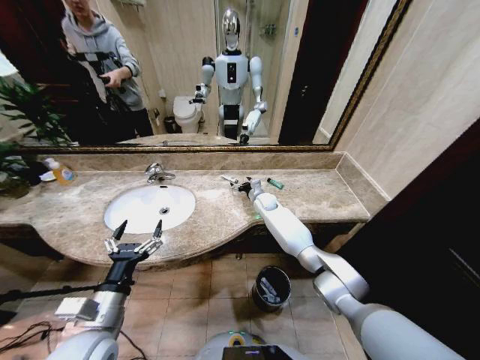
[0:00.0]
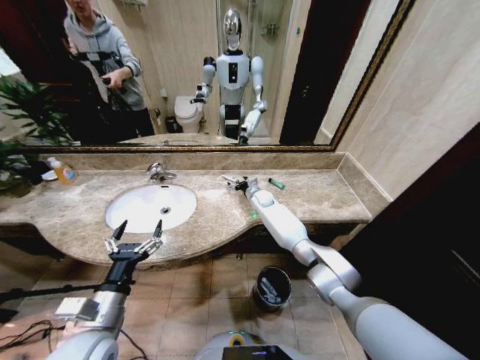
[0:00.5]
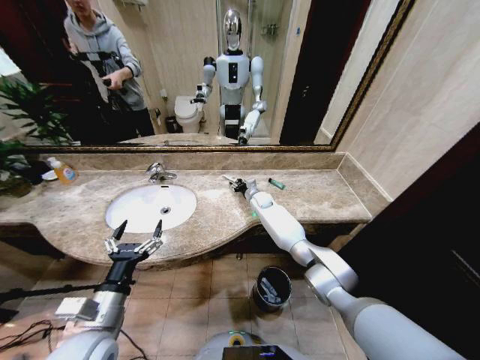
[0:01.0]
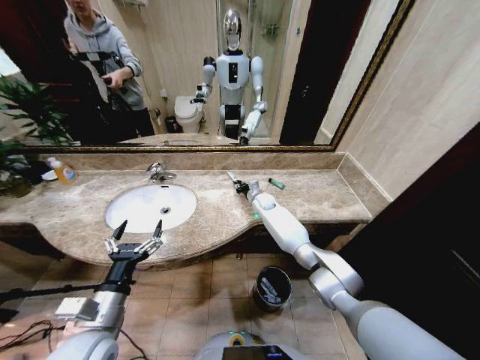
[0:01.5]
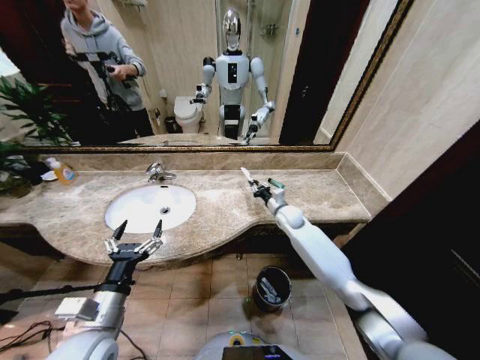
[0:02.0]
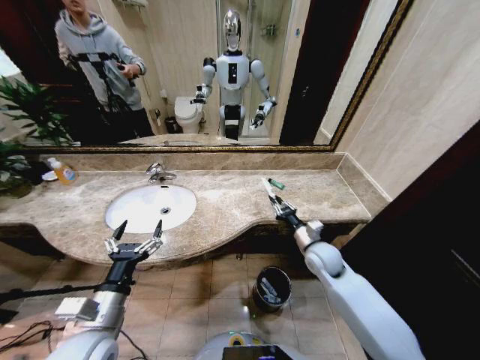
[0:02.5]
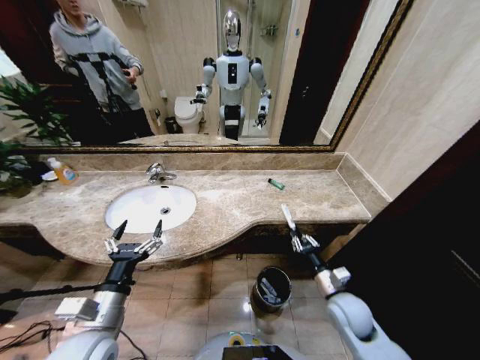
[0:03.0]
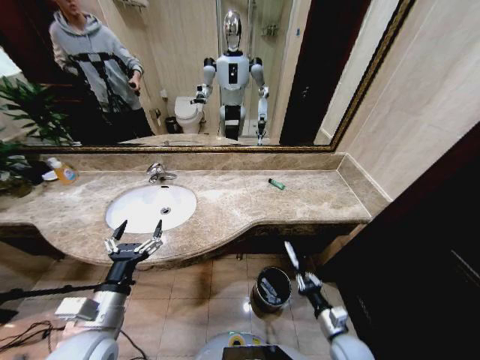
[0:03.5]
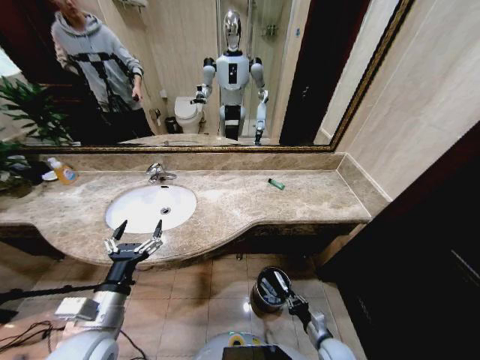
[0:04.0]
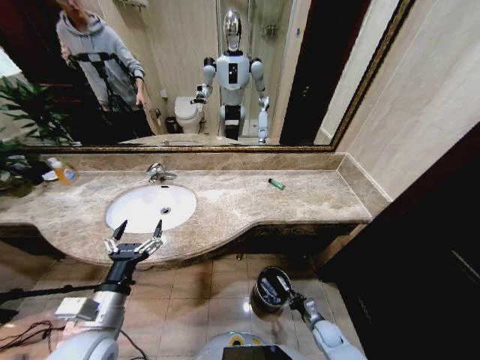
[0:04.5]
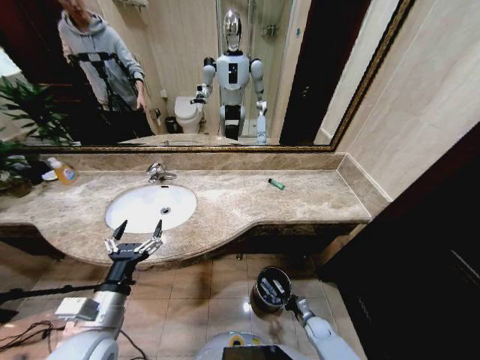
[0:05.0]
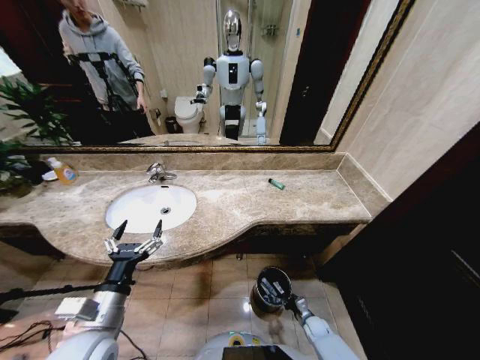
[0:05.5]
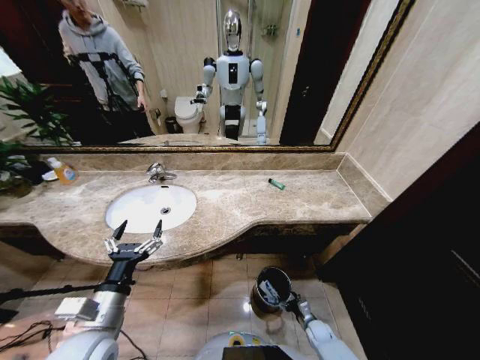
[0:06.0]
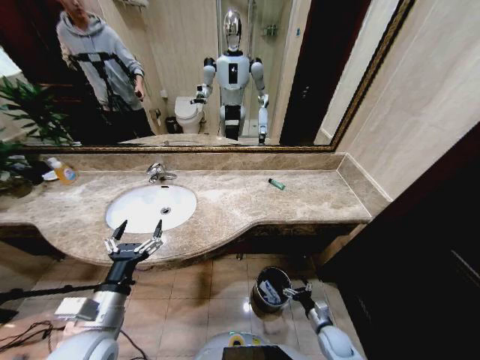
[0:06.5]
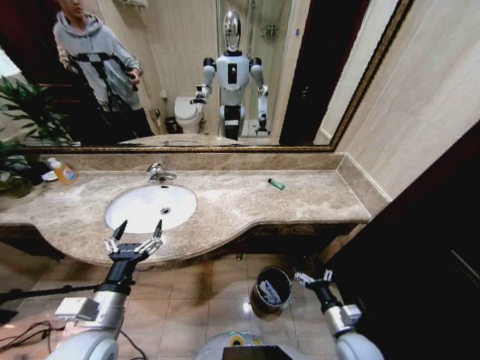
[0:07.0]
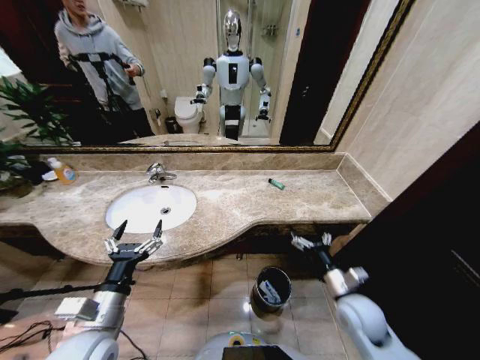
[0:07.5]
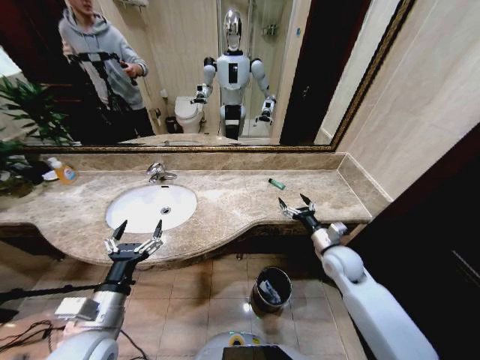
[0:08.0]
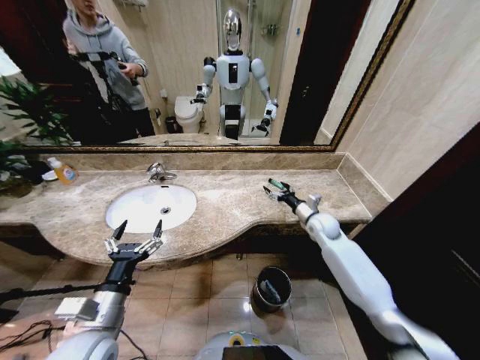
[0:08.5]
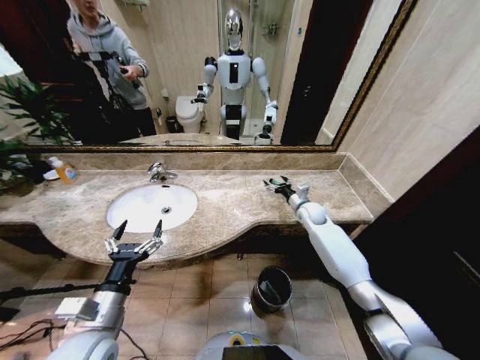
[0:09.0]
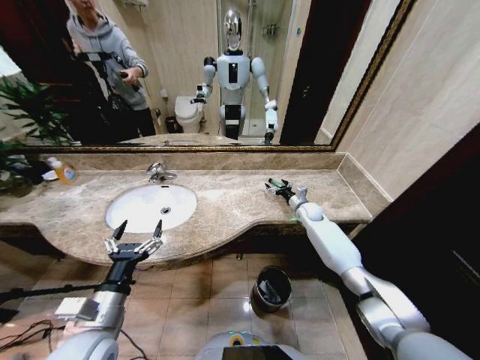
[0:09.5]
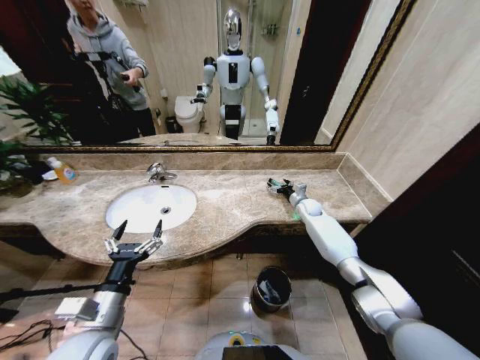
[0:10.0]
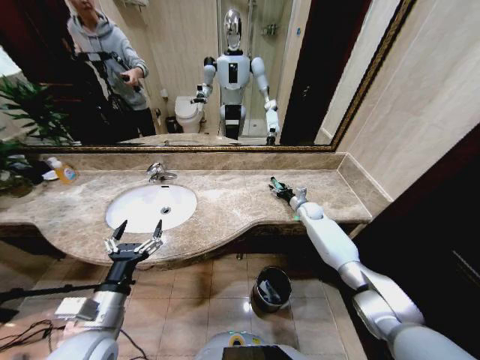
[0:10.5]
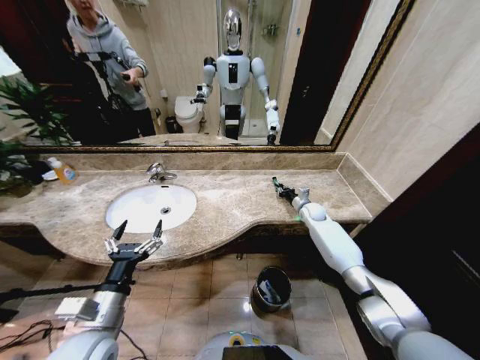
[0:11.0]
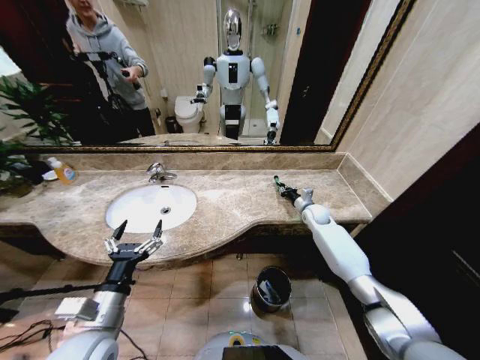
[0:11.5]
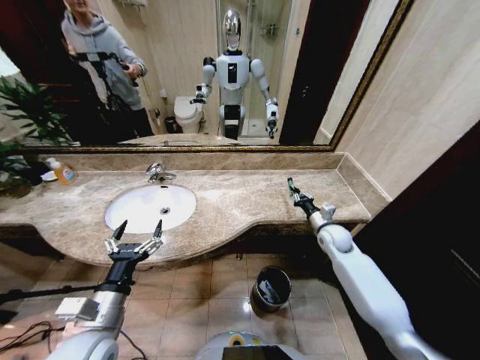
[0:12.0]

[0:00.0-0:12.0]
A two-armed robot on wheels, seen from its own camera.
Task of the whole recording: Pick up the trash from the sink and place it in the trash bin.
0:00.0 to 0:02.0: The right gripper is displaced backward and to the right by some 10 cm, and closes its fingers.
0:02.0 to 0:04.0: The right gripper heads backward and downward, covering approximately 40 cm.
0:04.0 to 0:06.0: The right gripper travels downward and forward by about 15 cm, and opens its fingers.
0:06.0 to 0:08.0: The right gripper moves upward, some 35 cm.
0:08.0 to 0:10.0: The right gripper is displaced forward by approximately 25 cm.
0:10.0 to 0:12.0: The right gripper is displaced backward by about 15 cm, and closes its fingers.

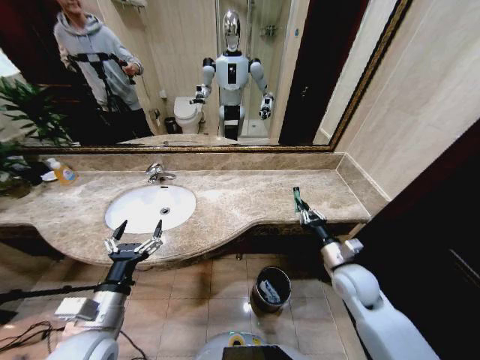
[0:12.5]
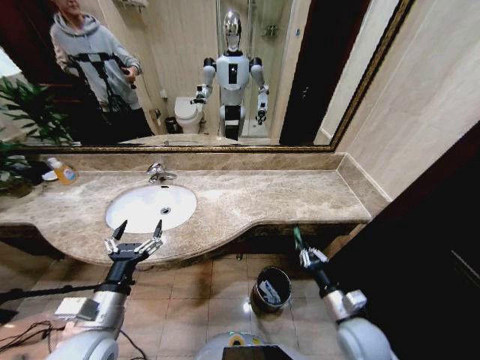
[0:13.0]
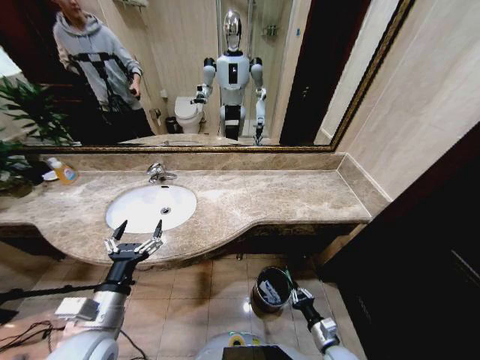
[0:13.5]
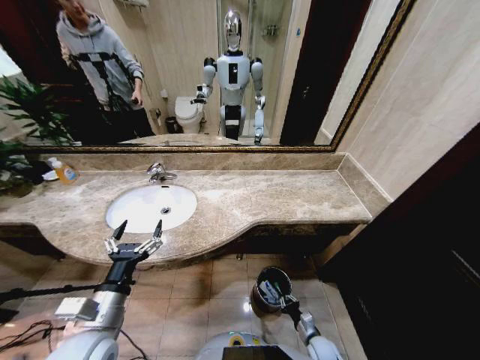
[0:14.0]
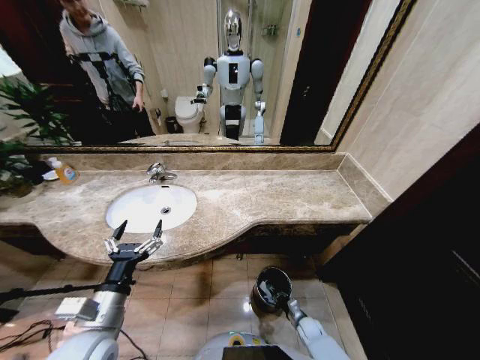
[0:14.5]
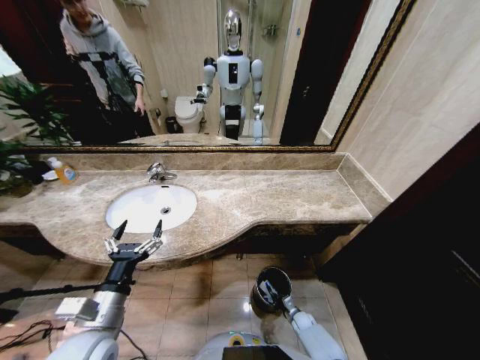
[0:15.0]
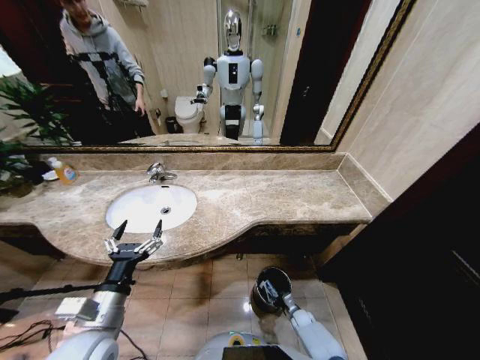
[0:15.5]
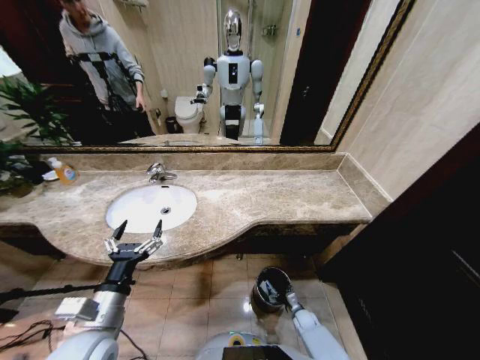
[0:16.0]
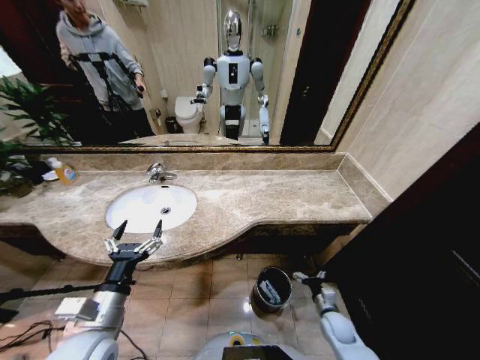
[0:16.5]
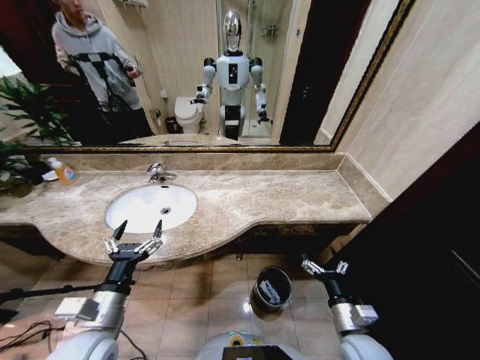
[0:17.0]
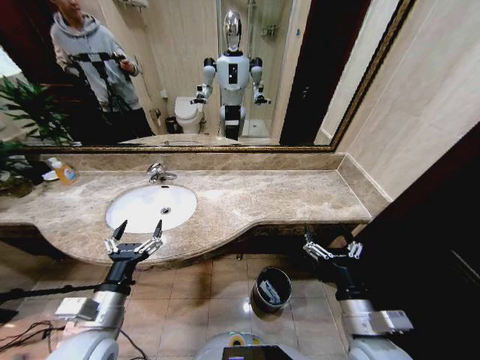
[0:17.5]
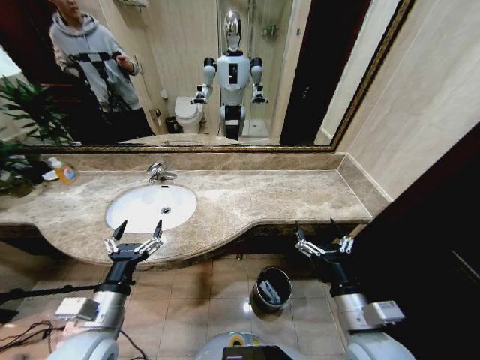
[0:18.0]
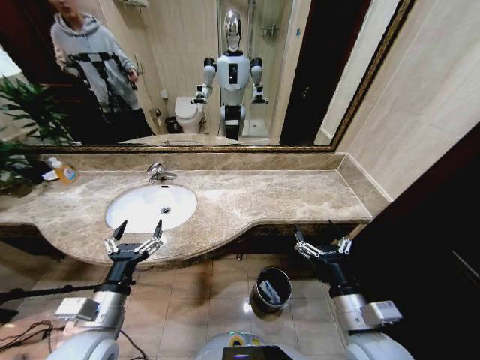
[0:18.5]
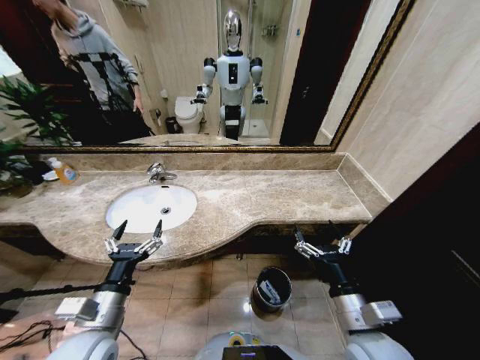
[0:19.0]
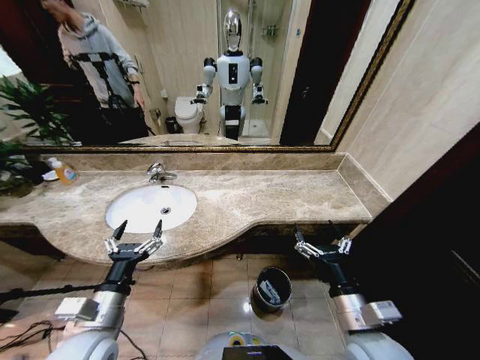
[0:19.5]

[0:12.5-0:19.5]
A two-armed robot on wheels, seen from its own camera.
Task of the whole recording: Pick up the trash from the sink and place it in the trash bin.
0:12.5 to 0:14.5: The right gripper goes approximately 35 cm downward.
0:14.5 to 0:16.0: The right gripper opens its fingers.
0:16.0 to 0:17.5: The right gripper is displaced upward by approximately 40 cm.
0:17.5 to 0:19.5: The grippers make only small movements.

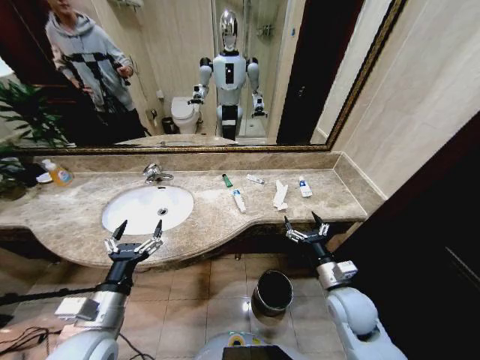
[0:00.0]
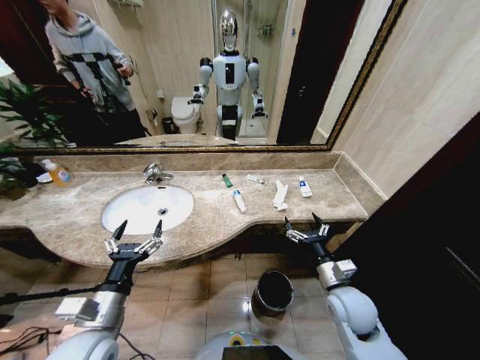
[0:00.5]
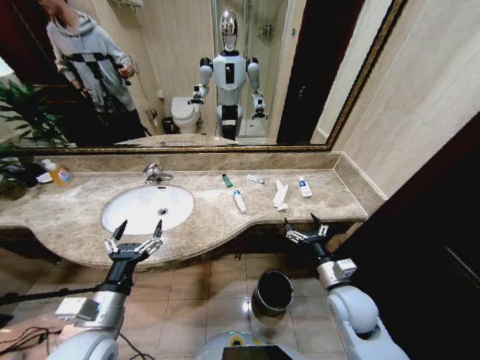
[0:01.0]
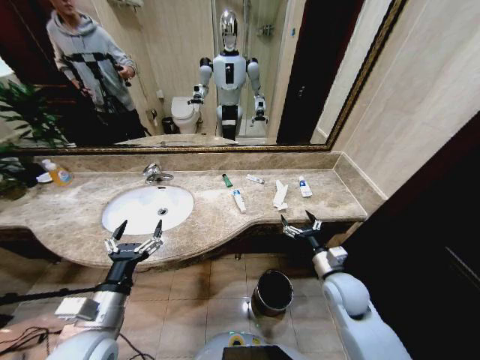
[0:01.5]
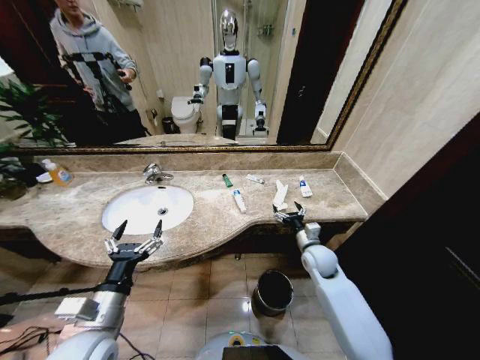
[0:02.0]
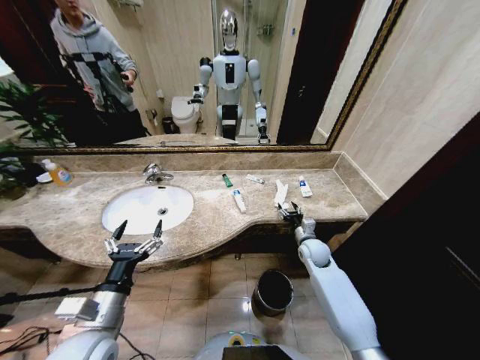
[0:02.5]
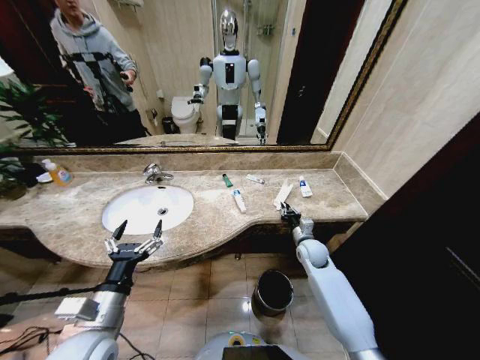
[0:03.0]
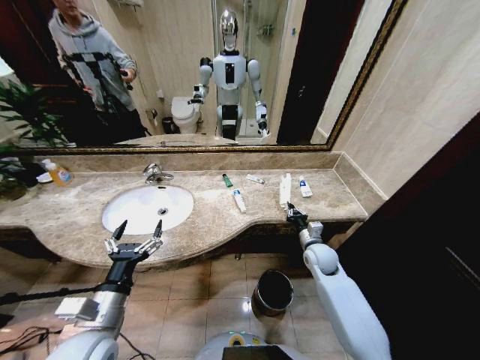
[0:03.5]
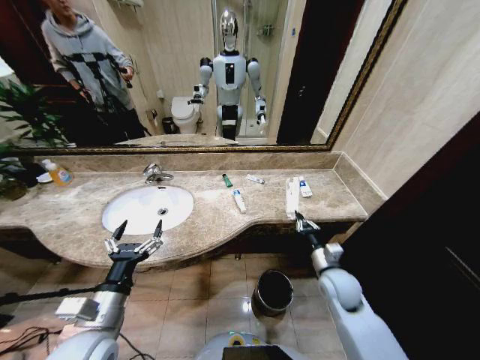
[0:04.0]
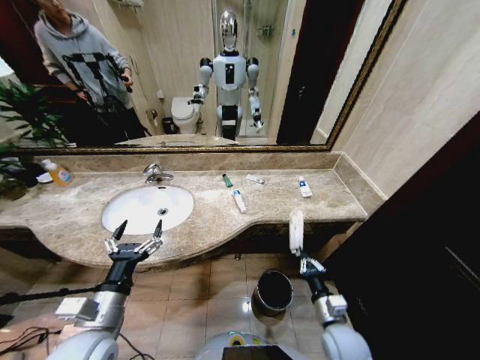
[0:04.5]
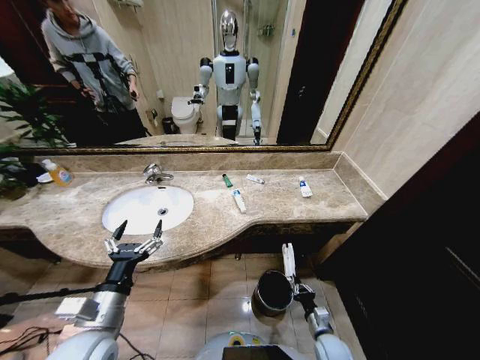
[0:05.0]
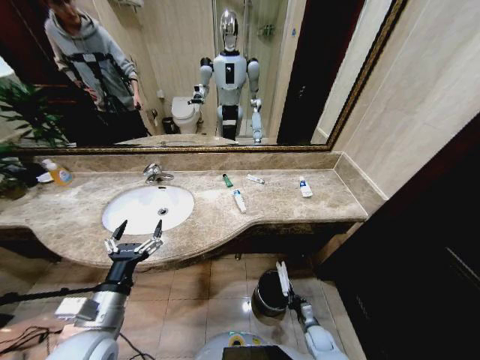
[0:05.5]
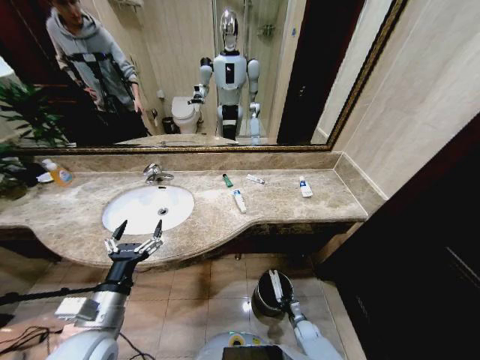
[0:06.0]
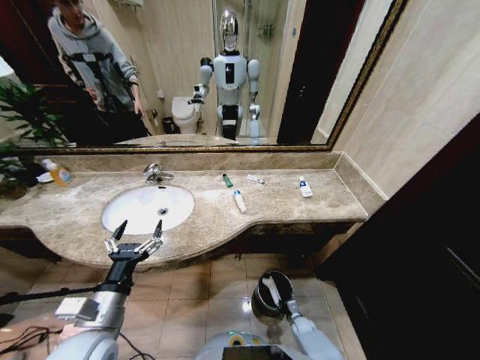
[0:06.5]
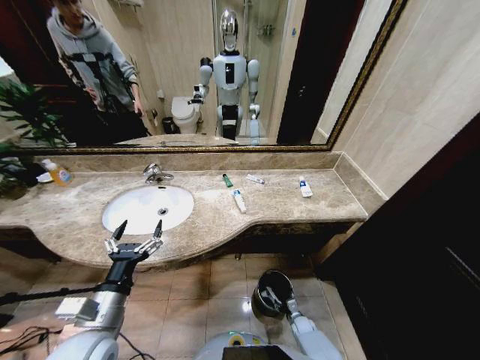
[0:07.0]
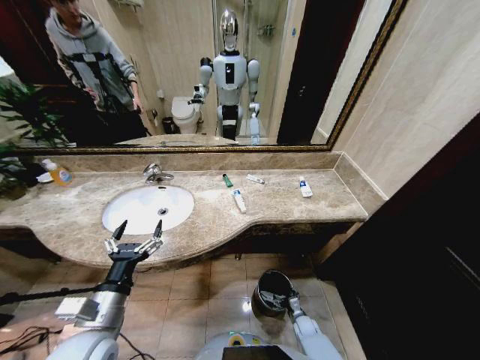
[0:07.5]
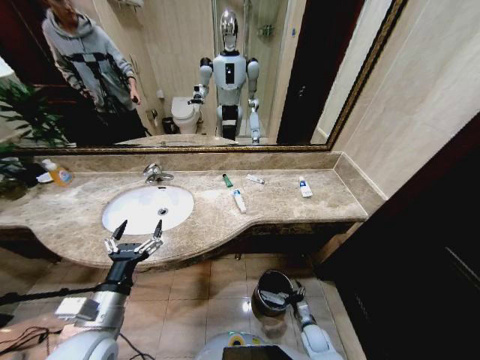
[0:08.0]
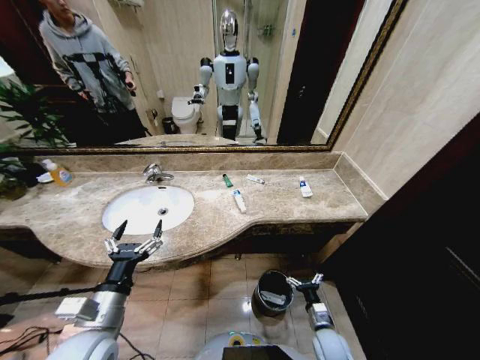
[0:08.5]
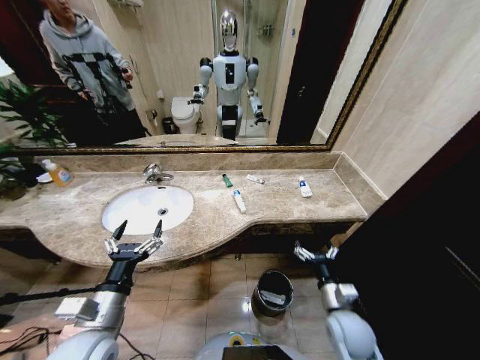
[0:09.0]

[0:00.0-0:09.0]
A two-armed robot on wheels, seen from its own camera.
Task of the whole recording: Pick up the trash from the sink and place it in the trash bin.
0:02.0 to 0:04.5: The right gripper is displaced backward by some 20 cm, and closes up.
0:04.5 to 0:07.0: The right gripper is displaced downward by about 30 cm, and opens.
0:07.0 to 0:09.0: The right gripper moves upward, about 35 cm, and opens its fingers.
